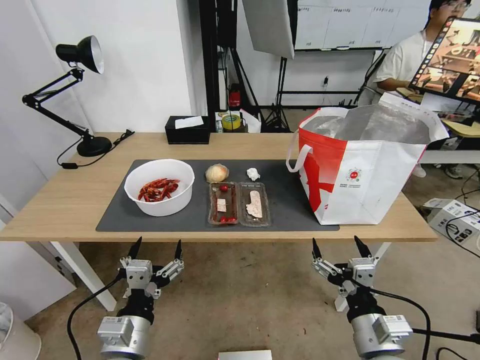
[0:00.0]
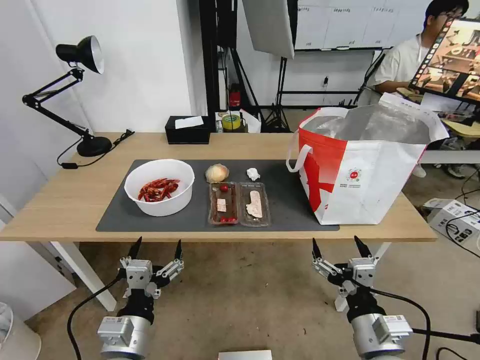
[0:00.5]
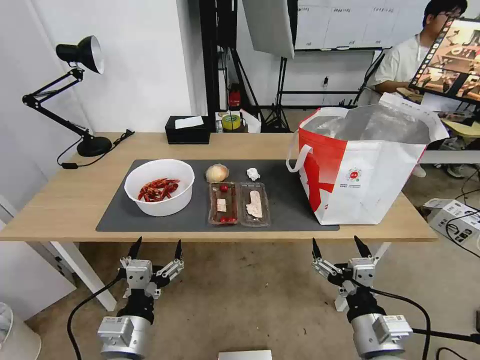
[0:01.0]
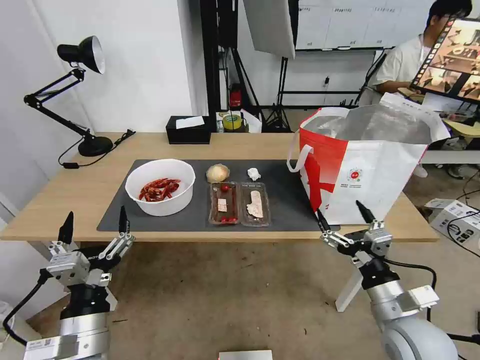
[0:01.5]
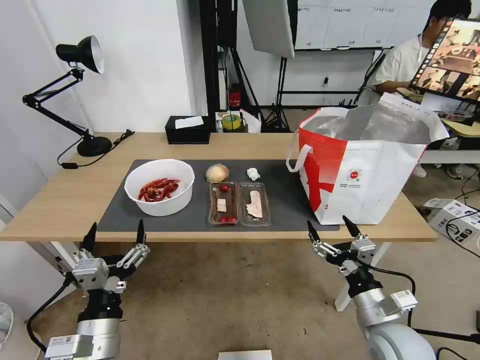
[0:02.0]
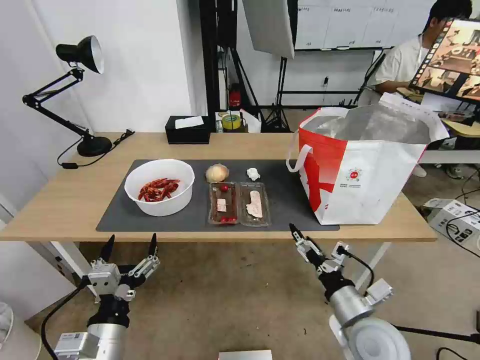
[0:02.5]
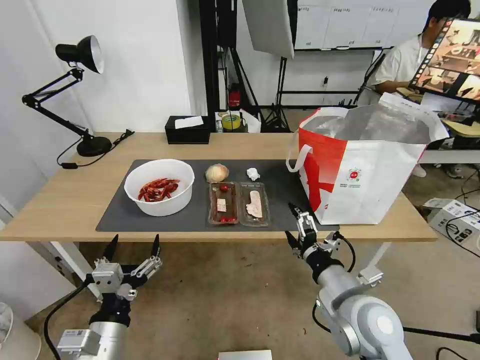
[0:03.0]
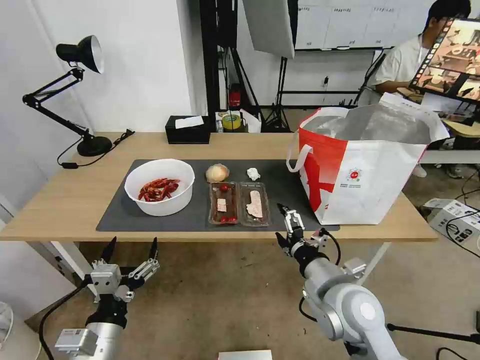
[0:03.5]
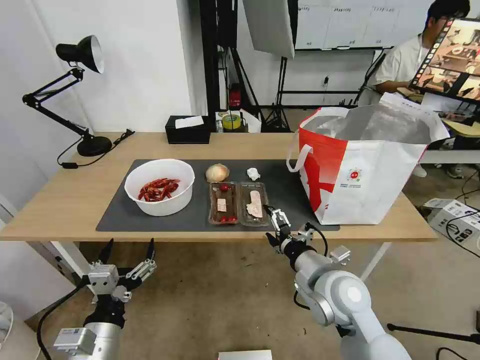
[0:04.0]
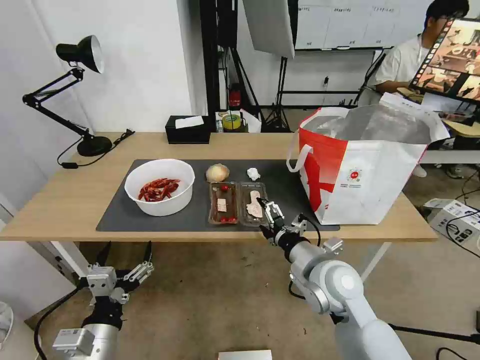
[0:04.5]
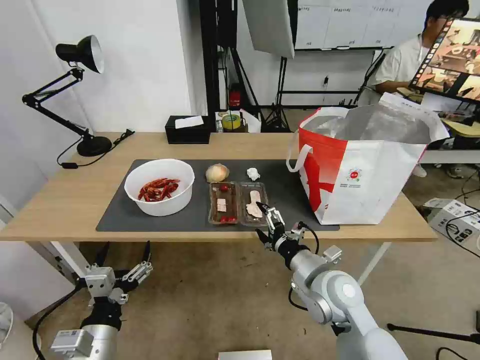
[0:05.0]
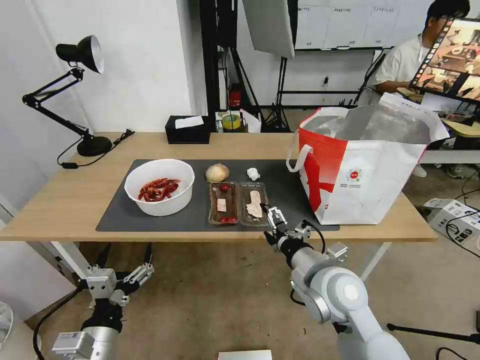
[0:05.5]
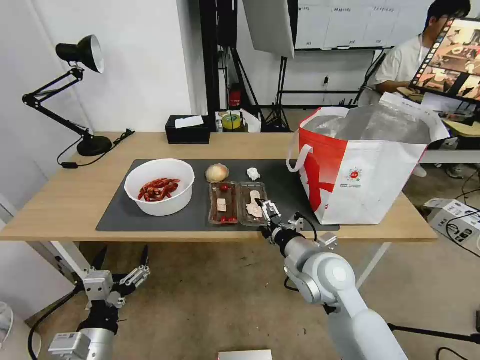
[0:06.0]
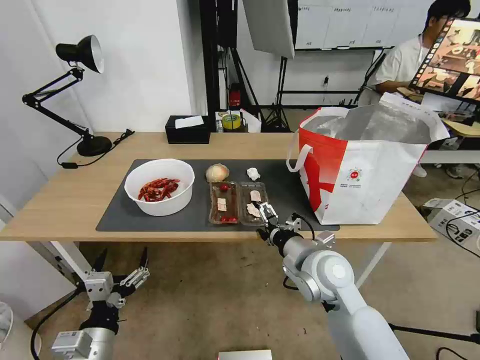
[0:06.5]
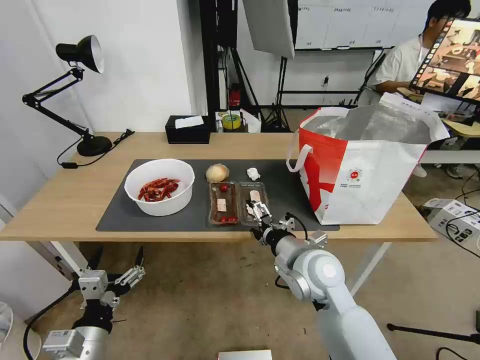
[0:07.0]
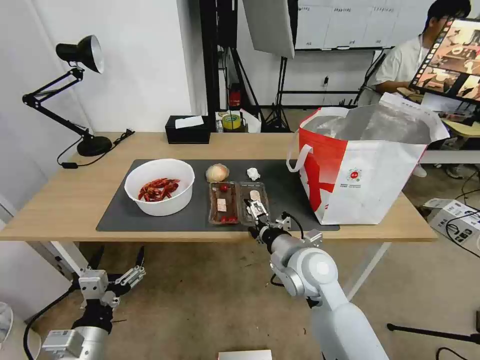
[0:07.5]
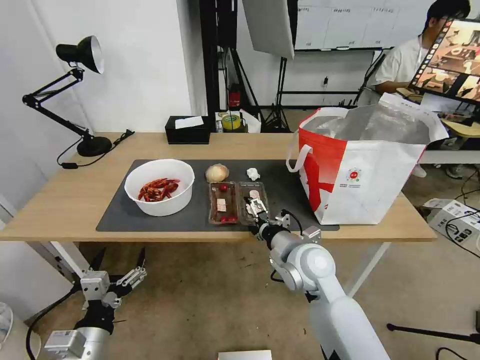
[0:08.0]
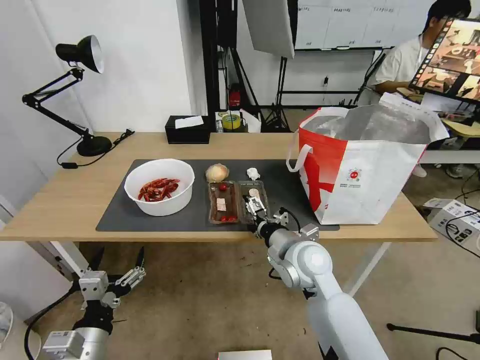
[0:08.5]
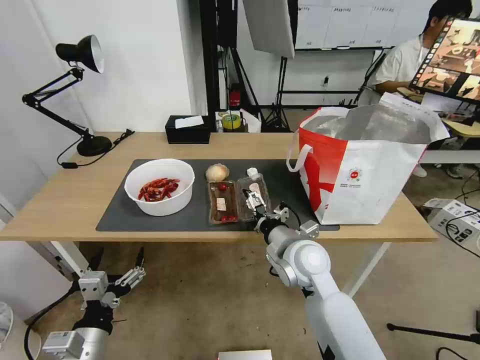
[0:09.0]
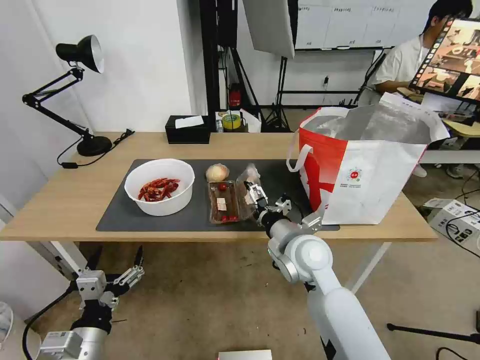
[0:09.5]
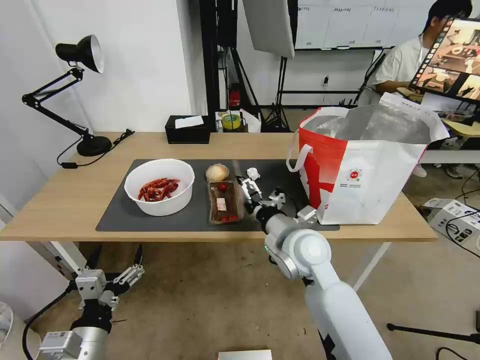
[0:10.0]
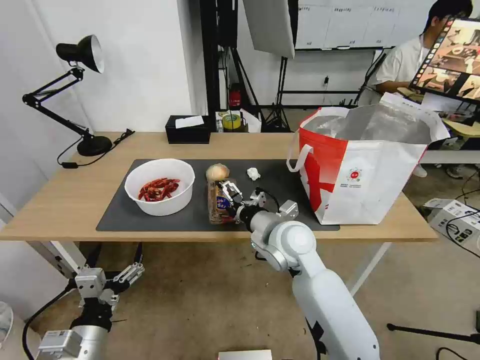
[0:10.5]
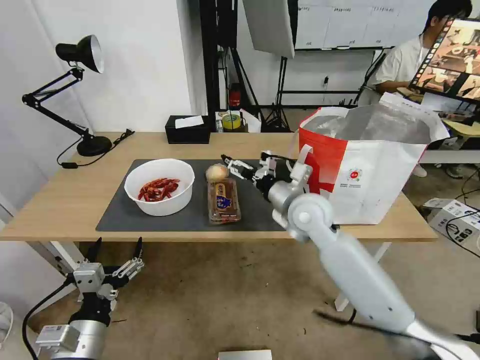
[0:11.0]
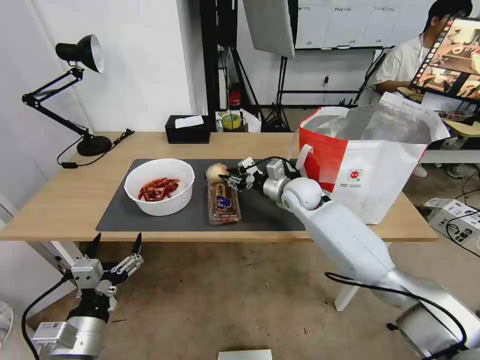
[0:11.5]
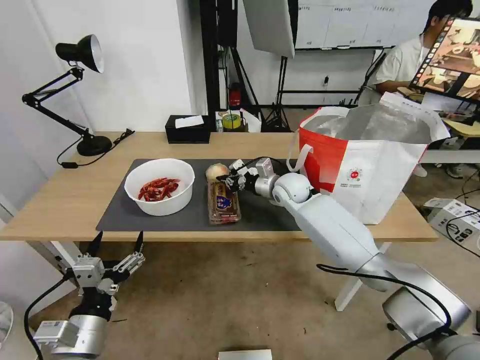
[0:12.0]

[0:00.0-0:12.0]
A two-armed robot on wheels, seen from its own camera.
Task of the whole recording: Pick up the trash from the table and place it into the takeout bag.
0:02.0 to 0:04.0: The right gripper heads to the left, forward and upward, covering approximately 15 cm.
0:04.0 to 0:06.0: The grippers move only a little.
0:06.0 to 0:10.0: The grippers move only a little.
0:10.0 to 0:12.0: The right gripper moves forward, some 20 cm, and closes.

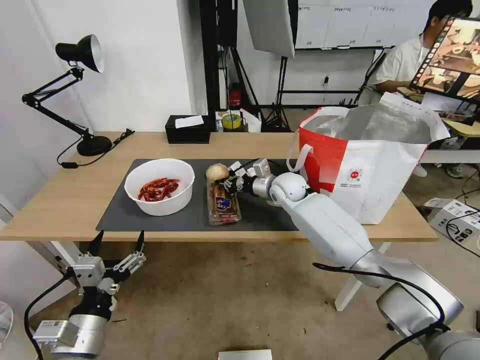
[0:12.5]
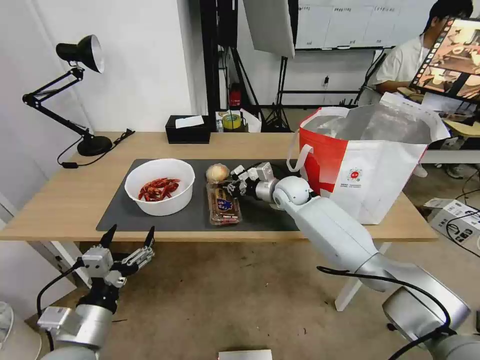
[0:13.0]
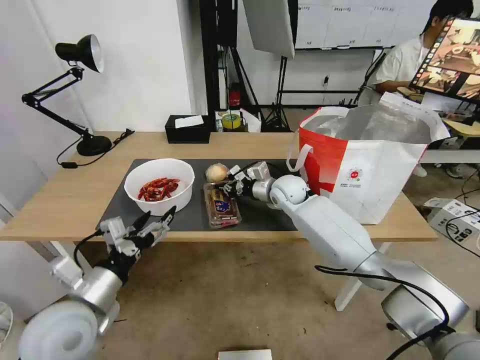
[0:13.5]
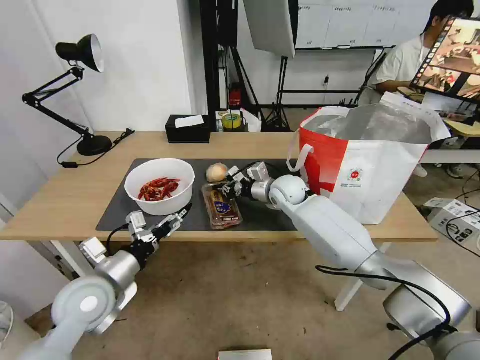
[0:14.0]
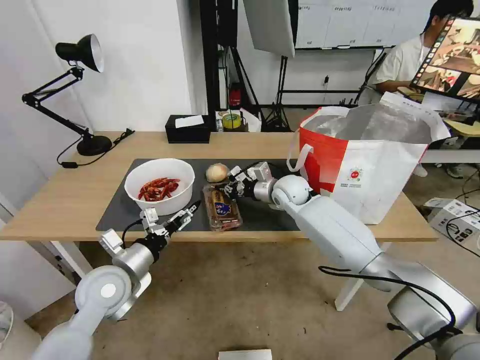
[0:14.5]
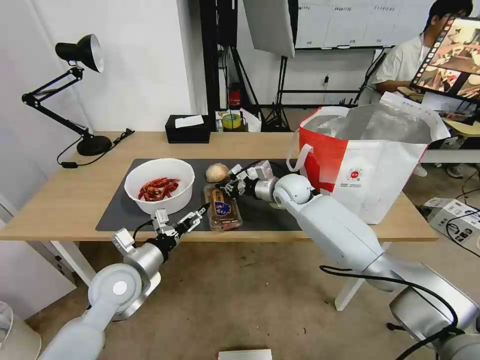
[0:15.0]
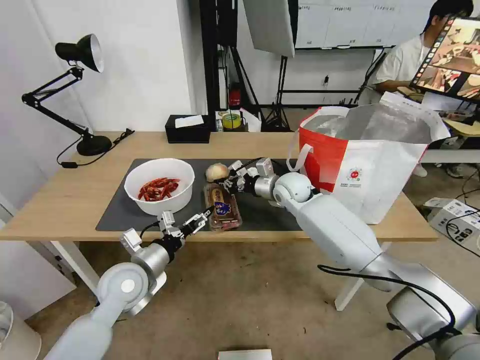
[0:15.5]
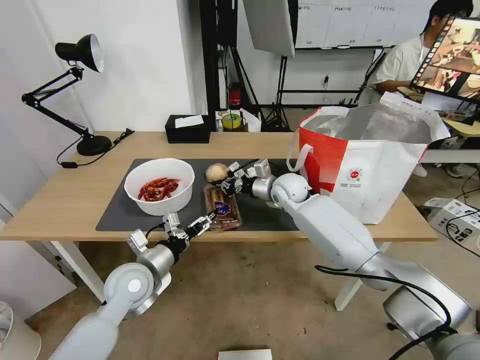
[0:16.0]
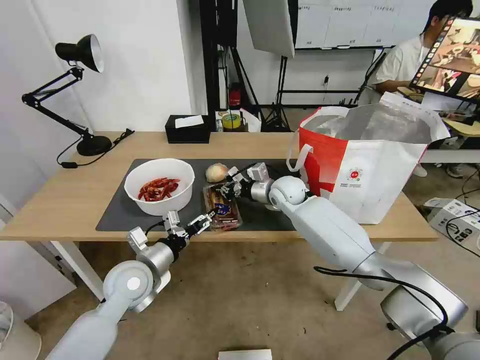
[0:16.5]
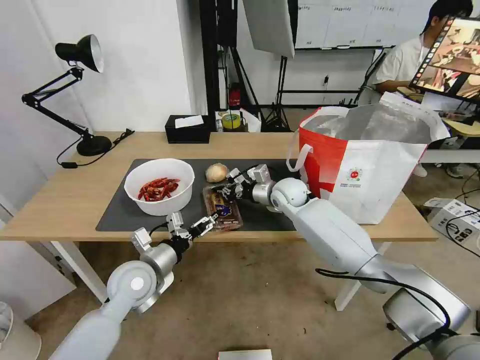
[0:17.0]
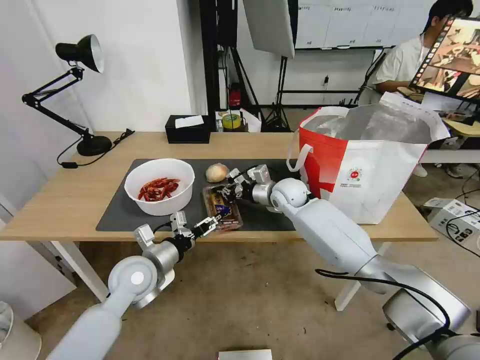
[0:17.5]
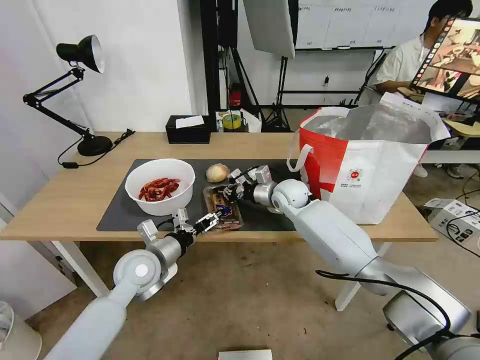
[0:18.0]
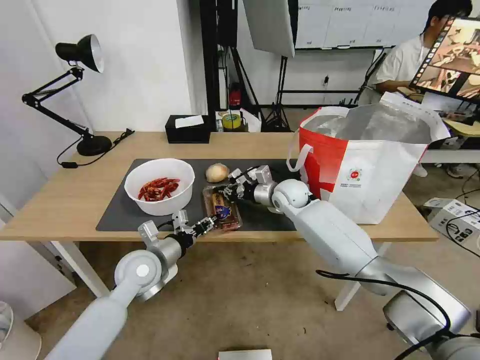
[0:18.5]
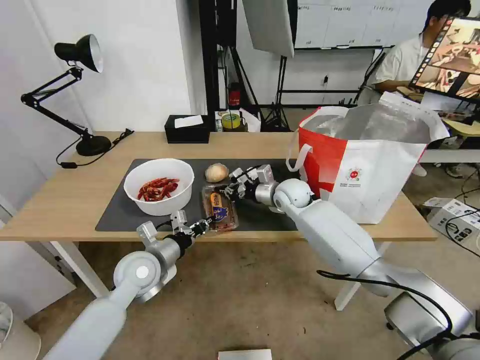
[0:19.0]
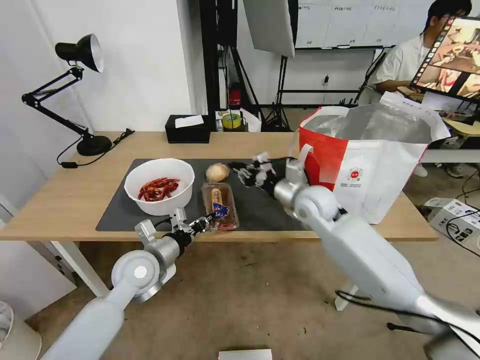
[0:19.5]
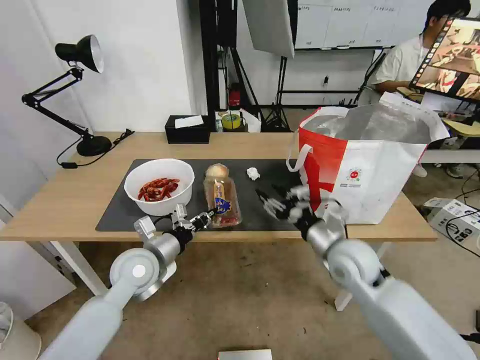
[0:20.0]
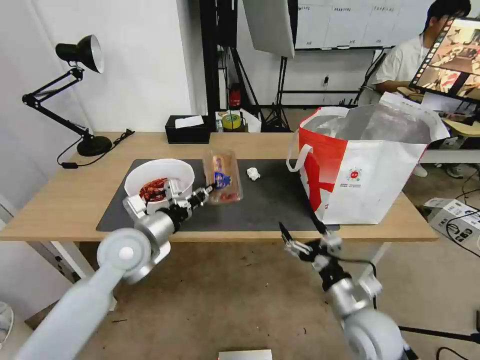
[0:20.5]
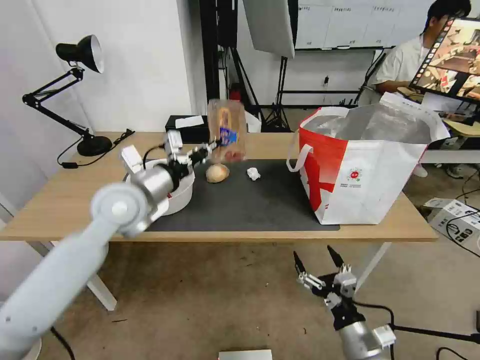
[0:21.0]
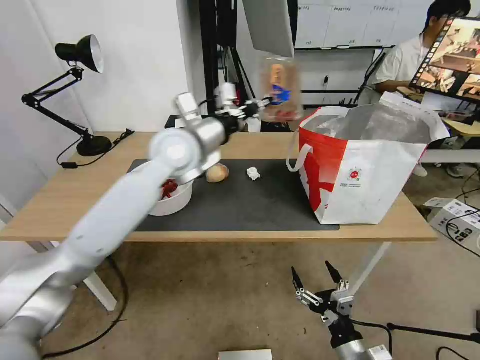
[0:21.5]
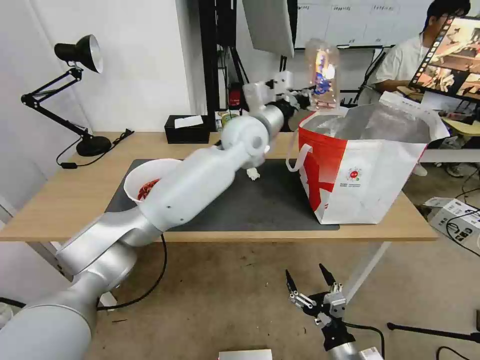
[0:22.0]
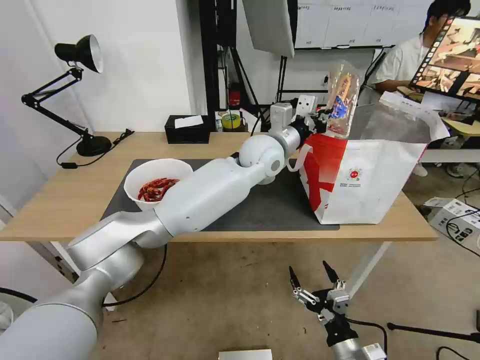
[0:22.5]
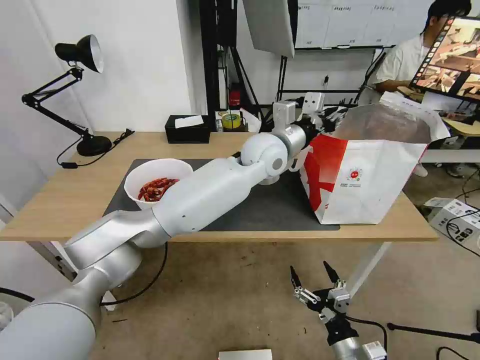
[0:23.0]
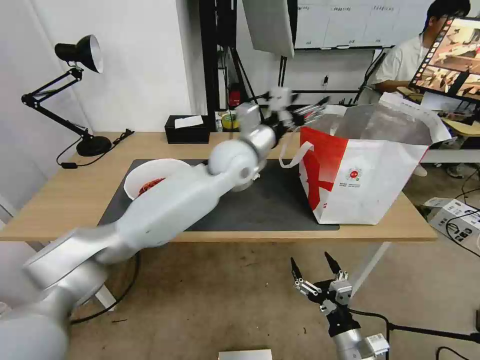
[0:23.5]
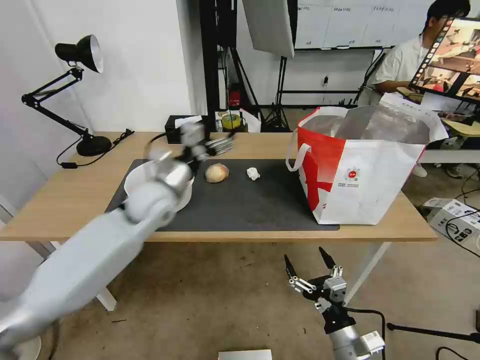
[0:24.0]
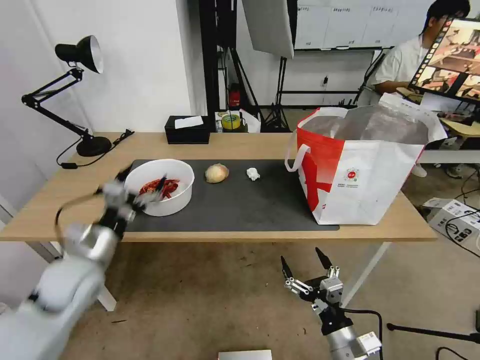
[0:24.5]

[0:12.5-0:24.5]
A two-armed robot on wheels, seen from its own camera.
Task of the whole recording: Pick up the trash from the table and place it into the takeout bag.
0:12.5 to 0:14.5: The left gripper shifts about 15 cm forward.
0:14.5 to 0:16.5: The grippers make only small movements.
0:16.5 to 0:18.5: The left gripper closes up.
0:18.5 to 0:20.5: The right gripper heads backward, covering roughly 35 cm, and opens up, while the left gripper is displaced upward by approximately 10 cm.
0:20.5 to 0:22.5: The right gripper travels backward and downward by about 10 cm. The left gripper goes about 30 cm to the right and forward.
0:22.5 to 0:24.5: The left gripper is displaced to the left and backward by approximately 40 cm, and opens up.

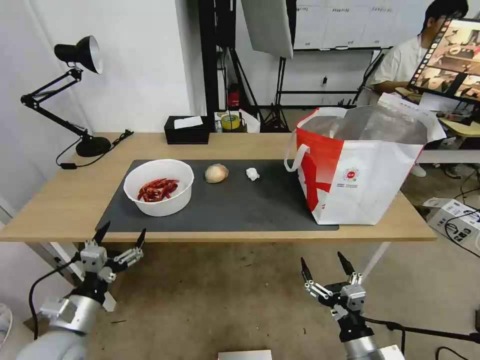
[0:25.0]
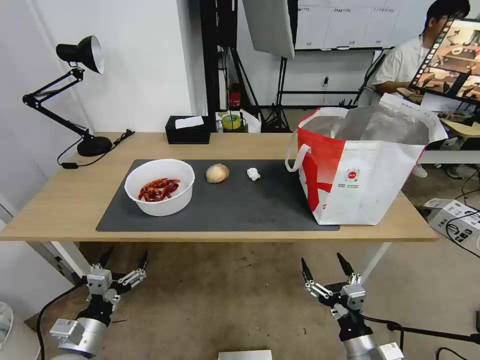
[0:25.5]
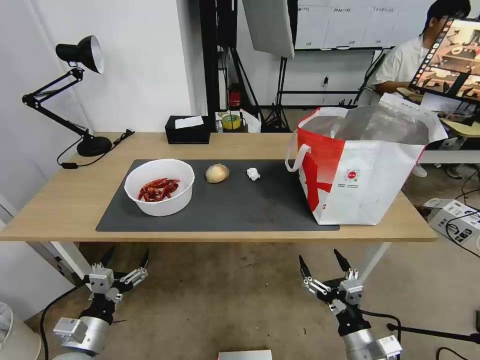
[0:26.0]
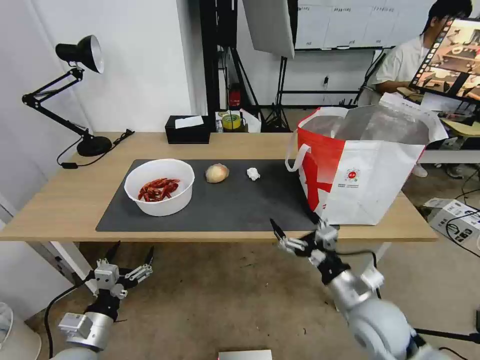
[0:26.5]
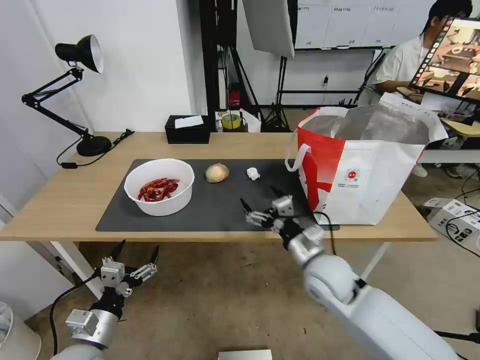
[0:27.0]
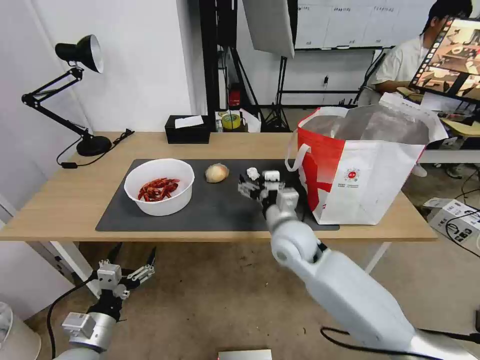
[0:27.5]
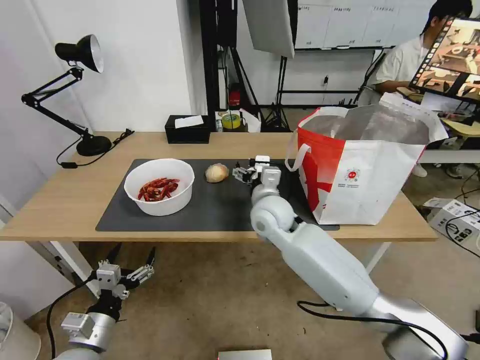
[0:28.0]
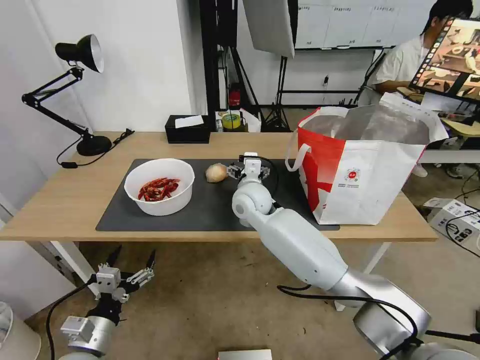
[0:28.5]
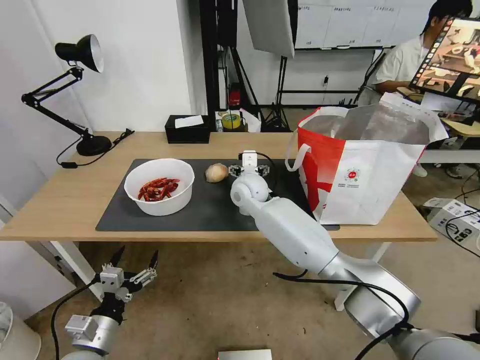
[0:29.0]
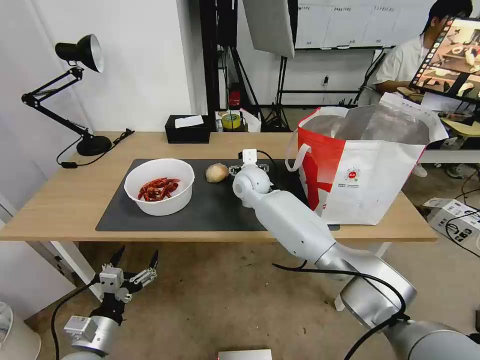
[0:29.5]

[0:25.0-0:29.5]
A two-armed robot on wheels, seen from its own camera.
Task of the whole recording: Pick up the trash from the table and place it into the takeout bag.
0:25.0 to 0:27.0: The right gripper is displaced forward and upward by about 20 cm.
0:27.0 to 0:29.5: The right gripper heads forward and to the left, covering approximately 30 cm.
